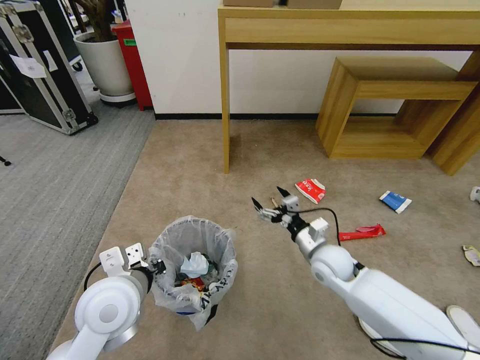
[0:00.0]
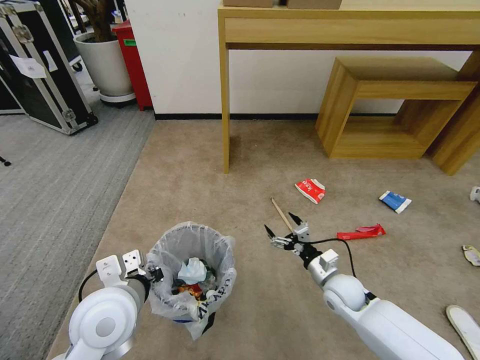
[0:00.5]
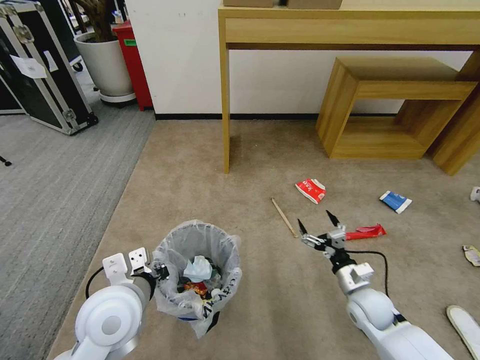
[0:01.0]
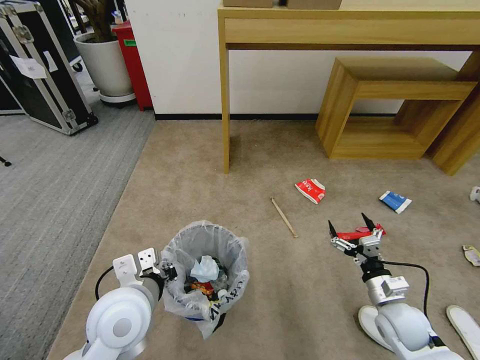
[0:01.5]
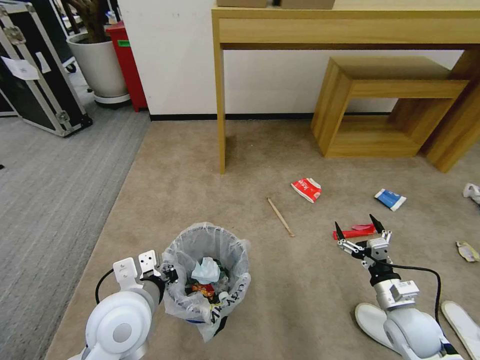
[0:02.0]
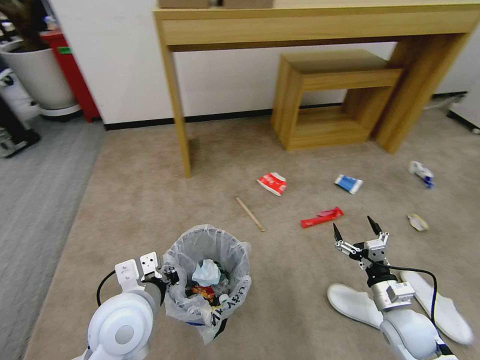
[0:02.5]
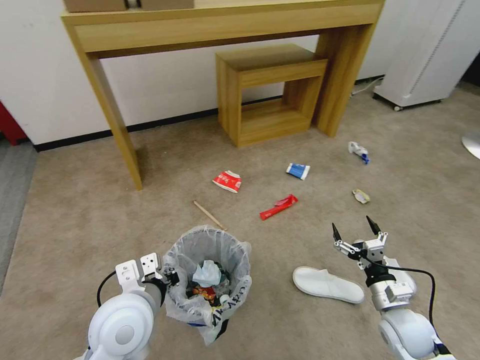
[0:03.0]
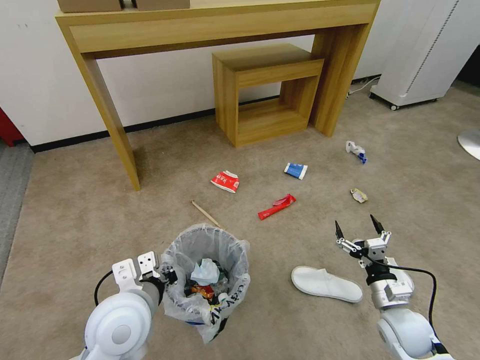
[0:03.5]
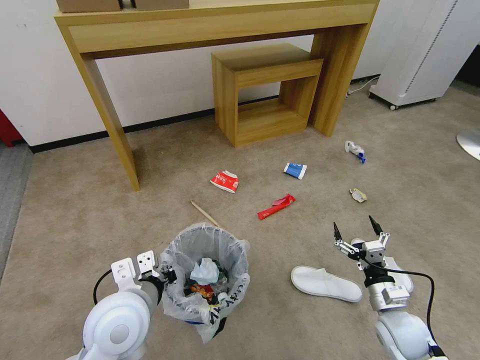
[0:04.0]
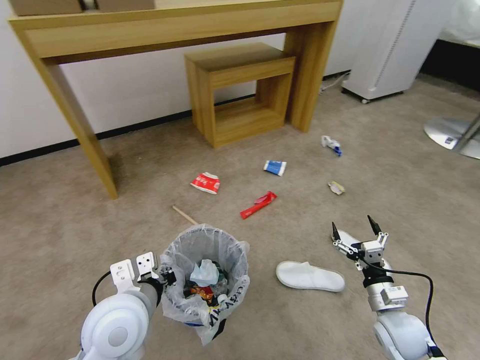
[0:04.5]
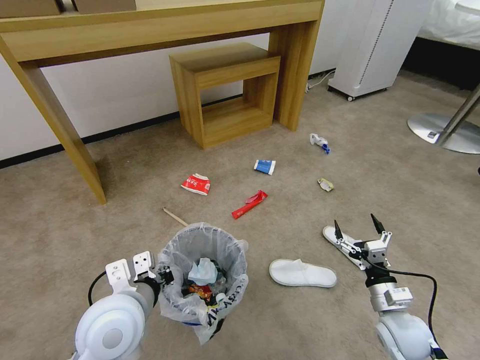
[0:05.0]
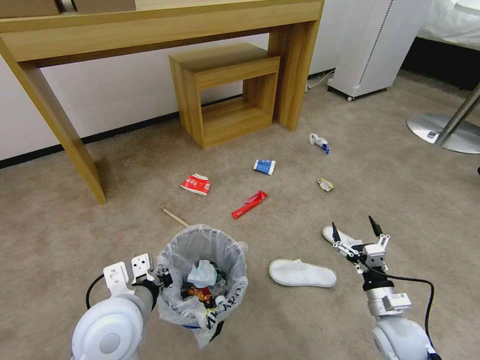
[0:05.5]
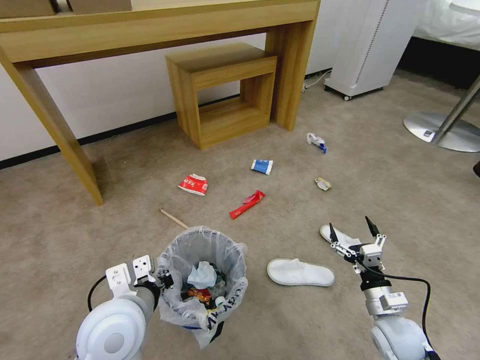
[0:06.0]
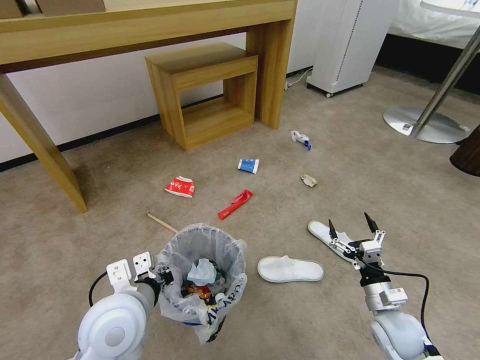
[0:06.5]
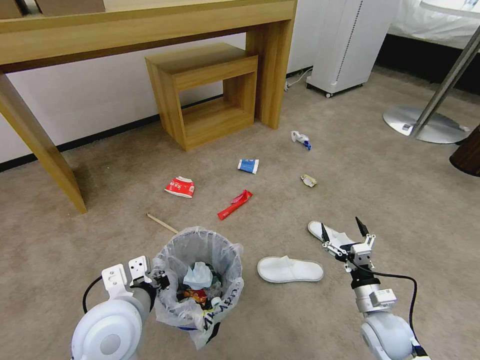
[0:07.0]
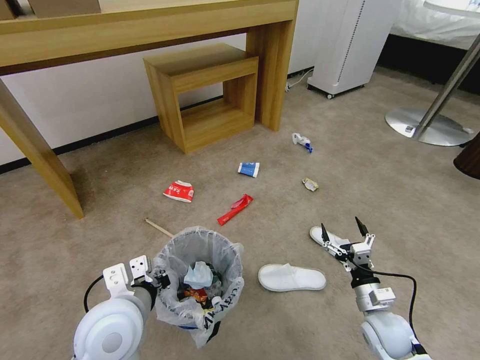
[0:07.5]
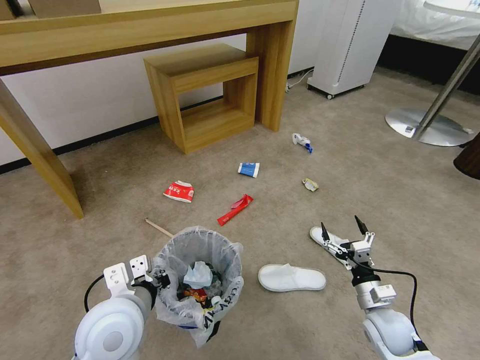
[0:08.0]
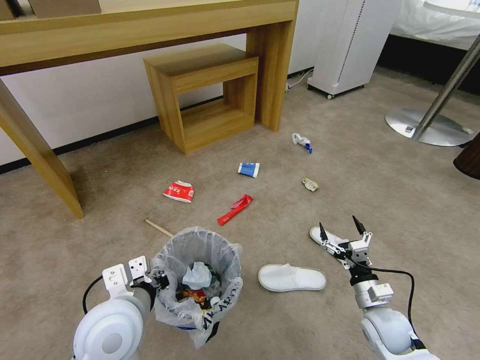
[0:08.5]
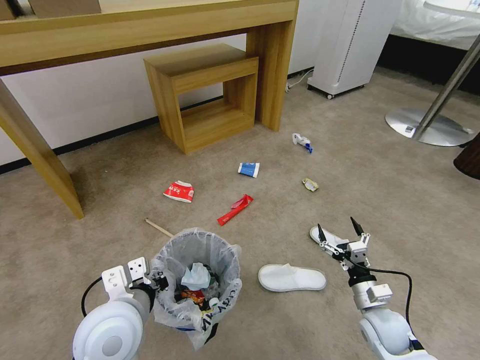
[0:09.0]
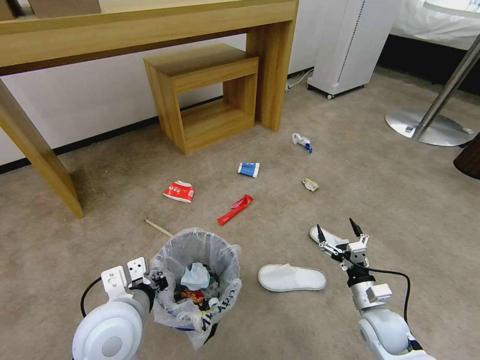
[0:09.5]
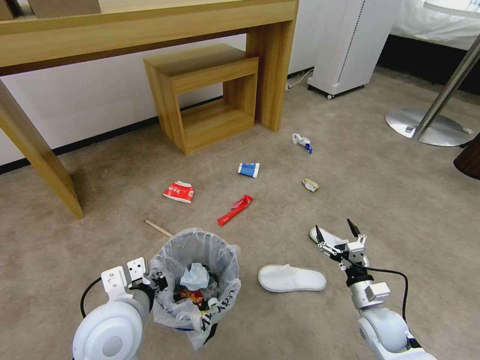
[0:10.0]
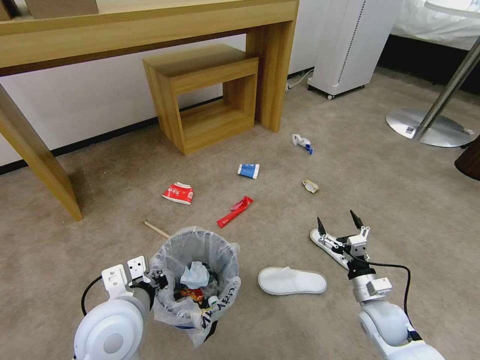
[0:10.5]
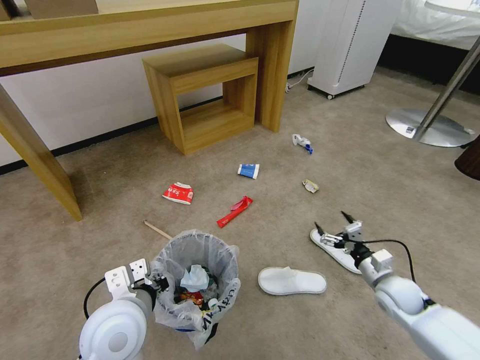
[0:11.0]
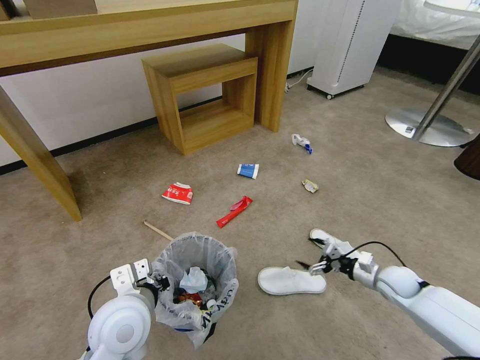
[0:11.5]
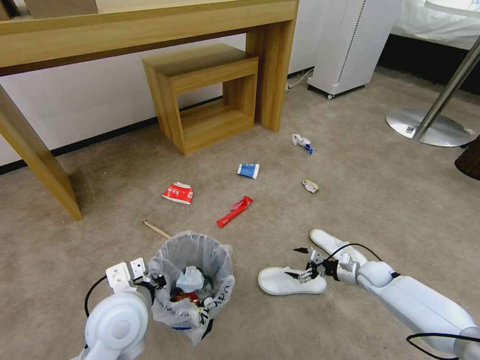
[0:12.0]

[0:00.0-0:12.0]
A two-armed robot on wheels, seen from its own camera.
Task of the whole recording: Pick up the trash bin and place the garbage on the floor into it.
0:00.0 to 0:02.0: The right gripper moves to the right and backward, roughly 20 cm.
0:08.0 to 0:10.0: Both grippers stay put.
0:10.0 to 0:12.0: The right gripper shifts about 15 cm forward and to the right.

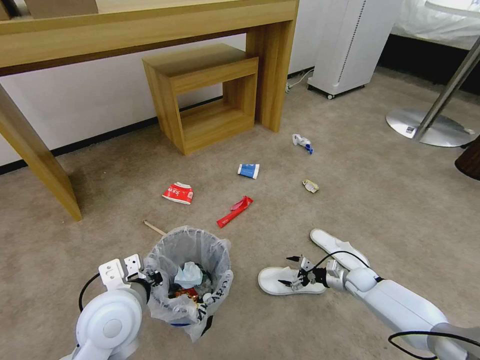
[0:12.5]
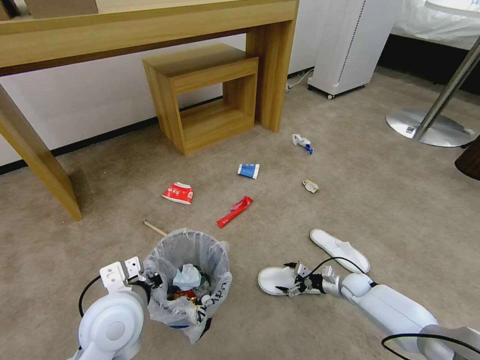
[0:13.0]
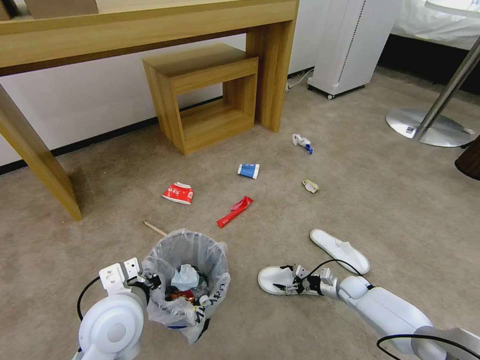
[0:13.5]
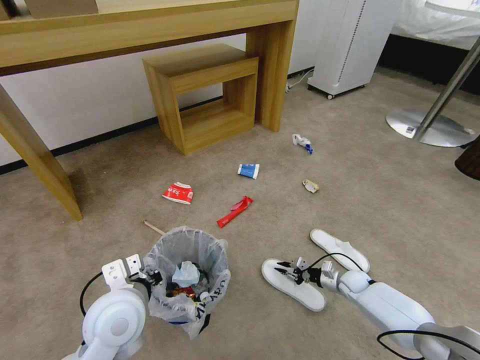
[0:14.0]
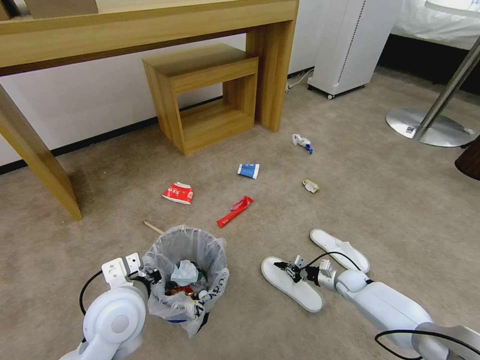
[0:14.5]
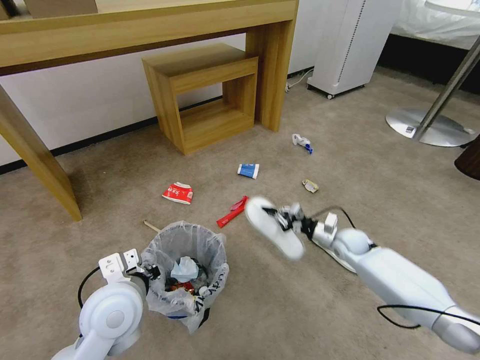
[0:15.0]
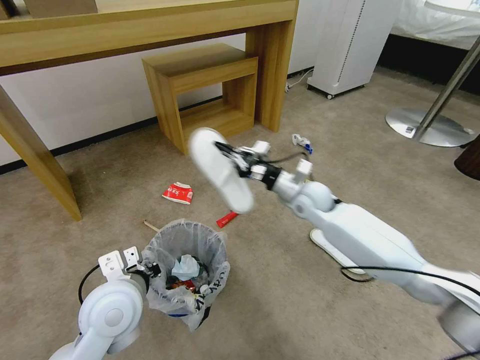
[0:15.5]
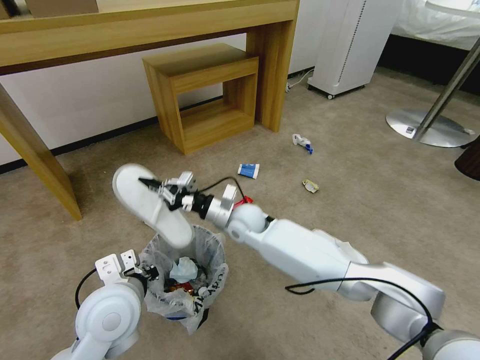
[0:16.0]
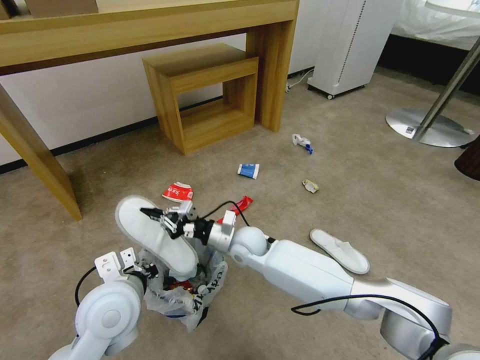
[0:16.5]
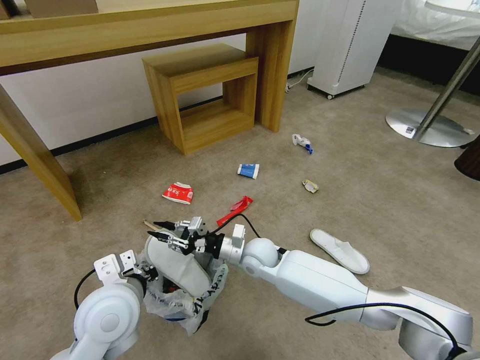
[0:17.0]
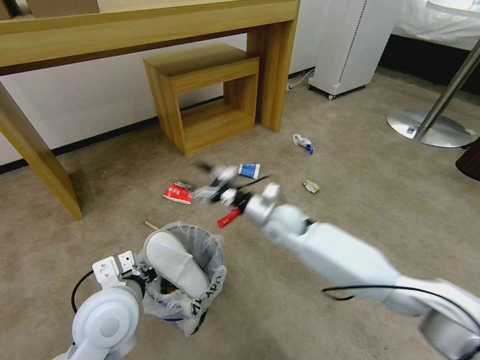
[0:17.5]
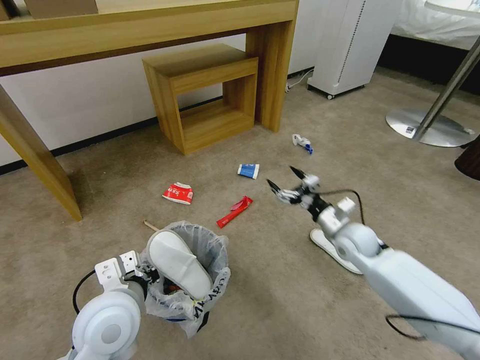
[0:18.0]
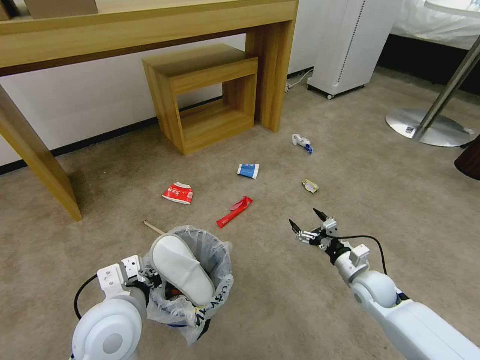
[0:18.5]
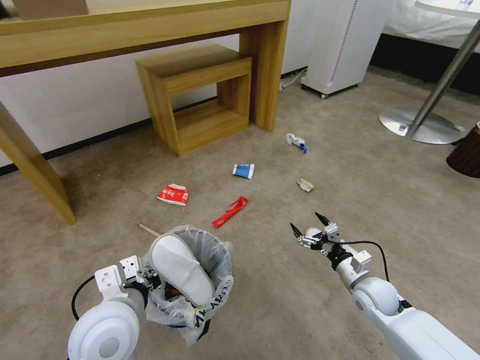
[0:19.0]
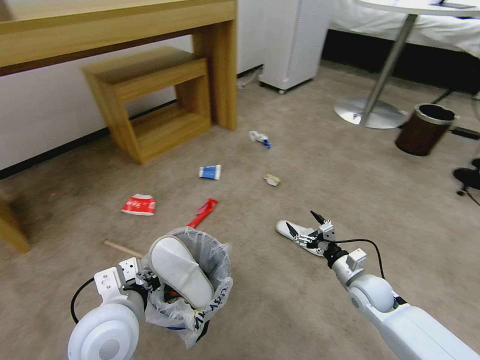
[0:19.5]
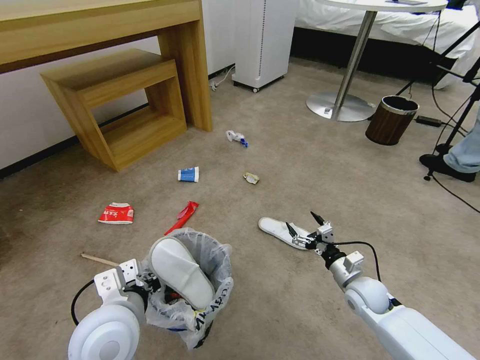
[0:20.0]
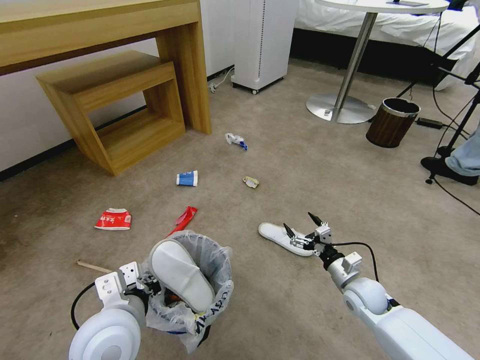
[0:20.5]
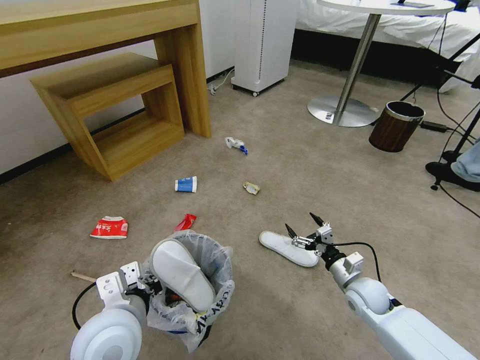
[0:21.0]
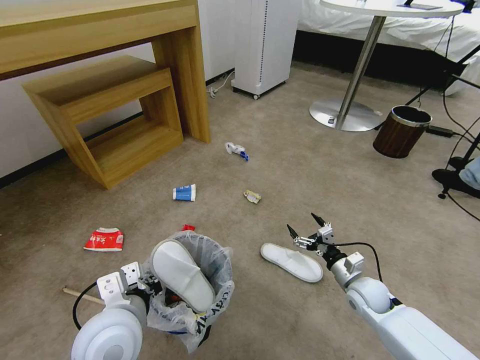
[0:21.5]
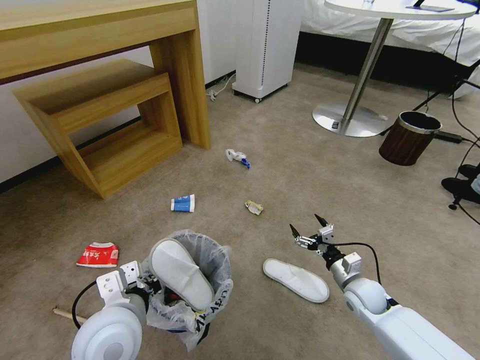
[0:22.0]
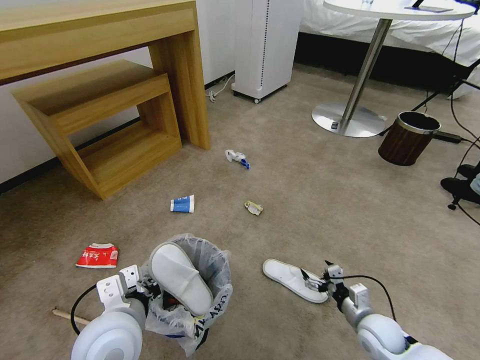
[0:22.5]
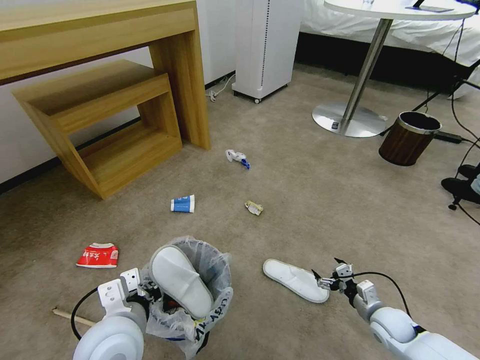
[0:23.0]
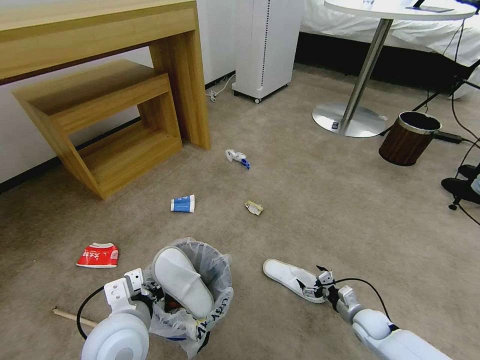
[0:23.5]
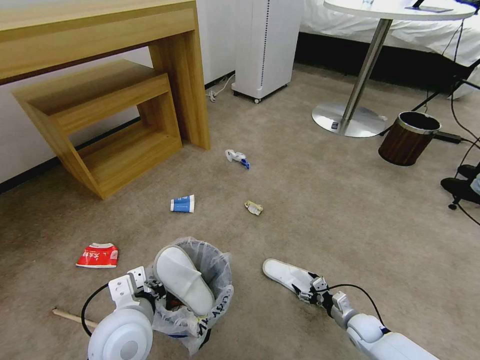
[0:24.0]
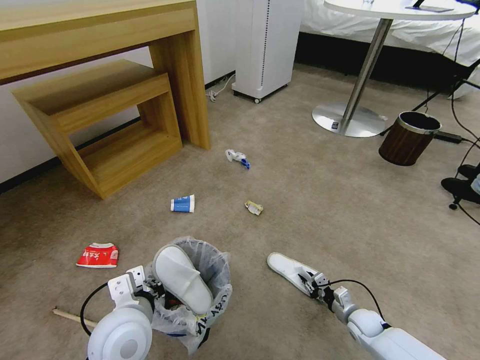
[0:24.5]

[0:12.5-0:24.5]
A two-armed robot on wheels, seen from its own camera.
Task of the whole recording: Pick up the trash bin and place the garbage on the floor into it.
0:12.5 to 0:14.5: The right gripper closes up.
0:14.5 to 0:16.5: The right gripper moves to the left and upward, approximately 40 cm.
0:16.5 to 0:18.5: The right gripper shifts roughly 30 cm to the right, and opens.
0:20.5 to 0:22.5: The right gripper shifts approximately 10 cm backward.
0:22.5 to 0:24.5: The right gripper travels downward by some 10 cm, and closes.

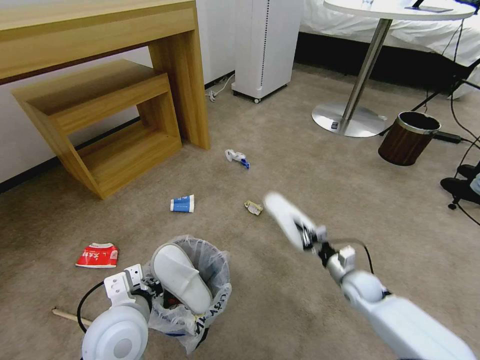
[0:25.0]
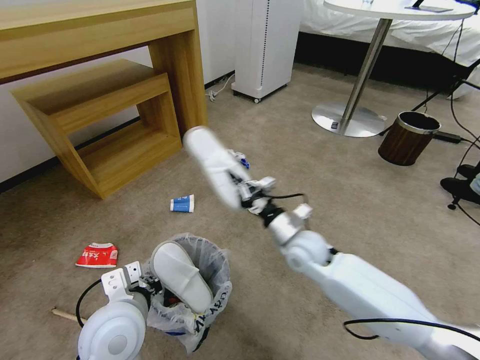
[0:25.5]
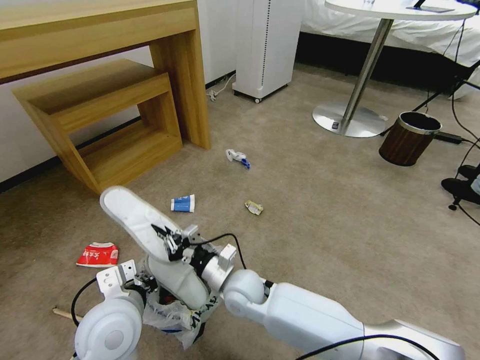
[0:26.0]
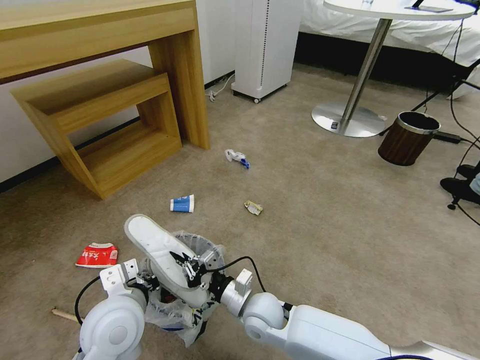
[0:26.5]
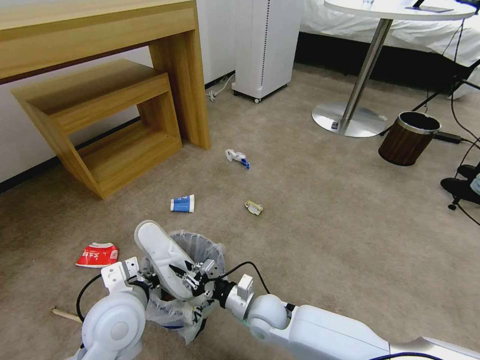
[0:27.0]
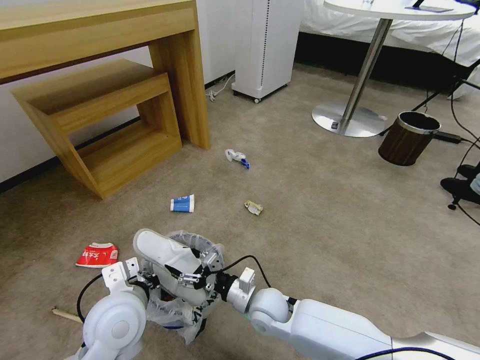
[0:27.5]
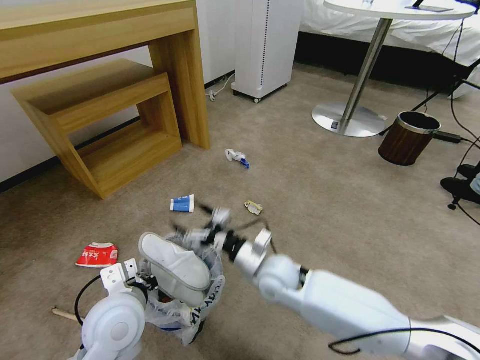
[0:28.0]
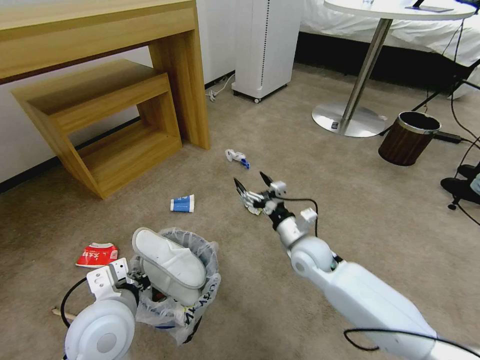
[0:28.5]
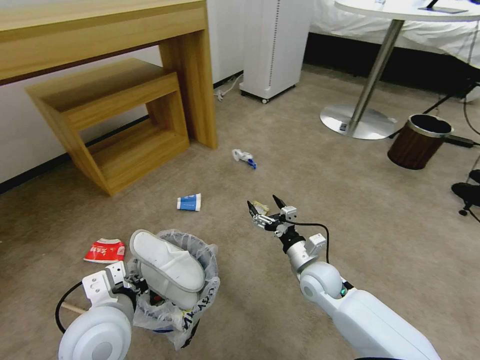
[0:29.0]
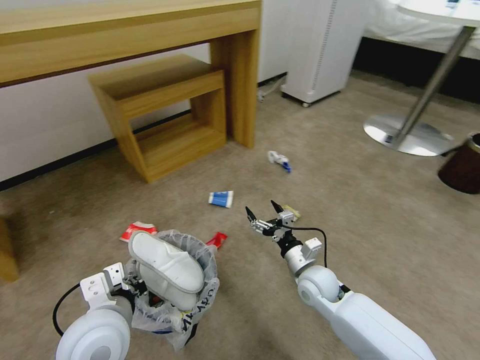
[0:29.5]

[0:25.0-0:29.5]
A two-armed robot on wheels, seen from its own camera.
Task of the whole recording: Pick up the trash bin and place the garbage on the floor into it.
0:25.0 to 0:27.0: The right gripper is displaced to the left by approximately 25 cm.
0:27.0 to 0:29.5: The right gripper moves to the right and forward, about 15 cm, and opens.
